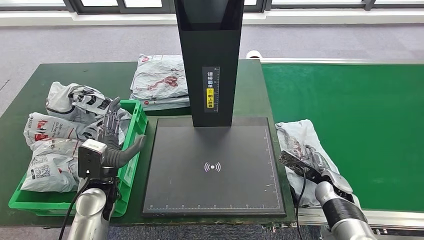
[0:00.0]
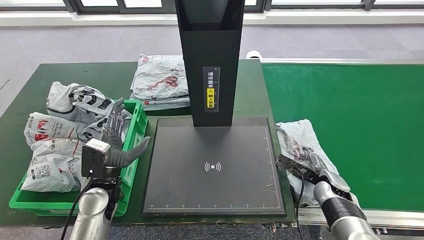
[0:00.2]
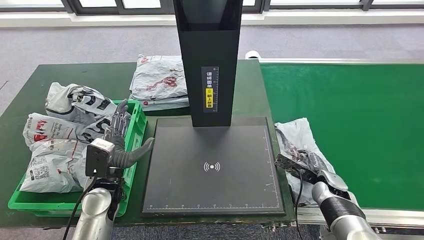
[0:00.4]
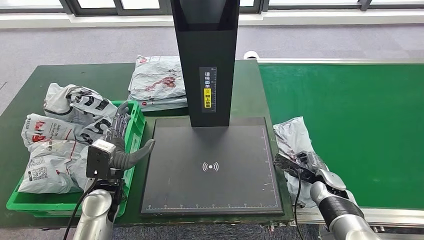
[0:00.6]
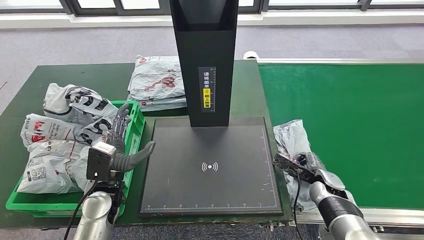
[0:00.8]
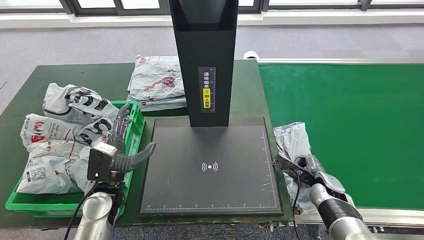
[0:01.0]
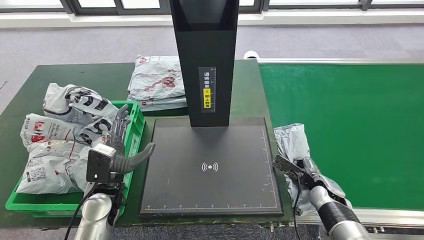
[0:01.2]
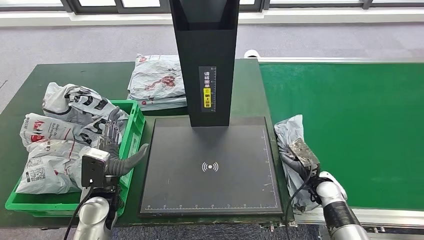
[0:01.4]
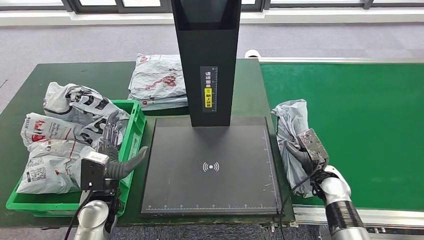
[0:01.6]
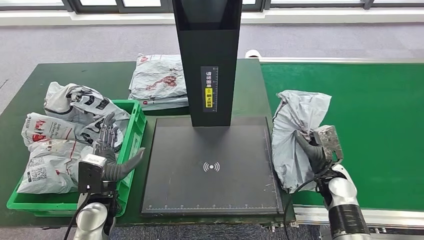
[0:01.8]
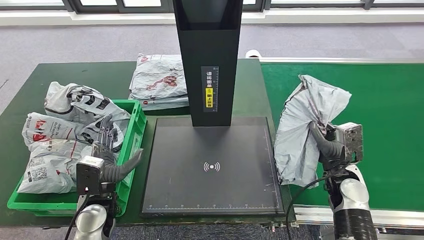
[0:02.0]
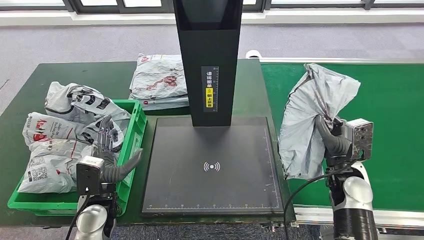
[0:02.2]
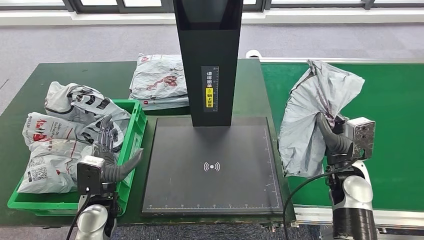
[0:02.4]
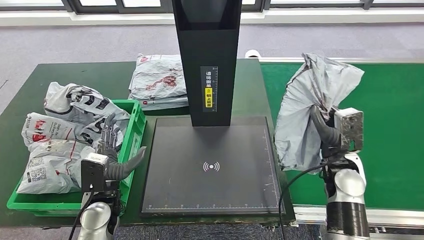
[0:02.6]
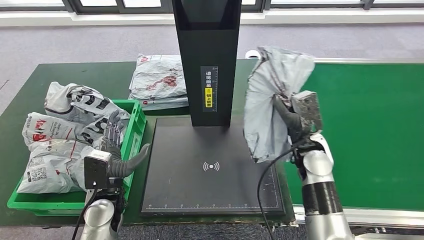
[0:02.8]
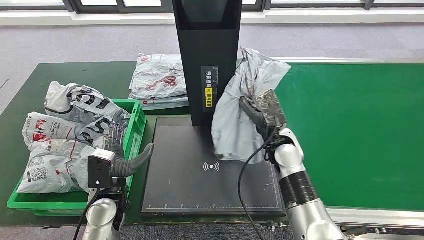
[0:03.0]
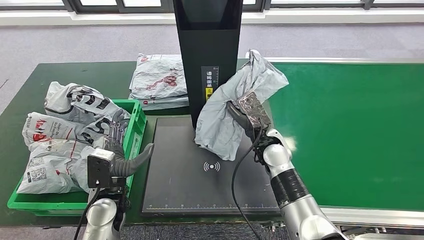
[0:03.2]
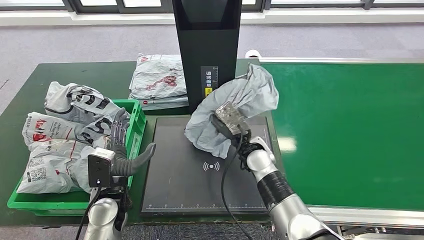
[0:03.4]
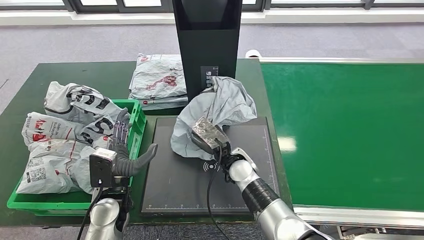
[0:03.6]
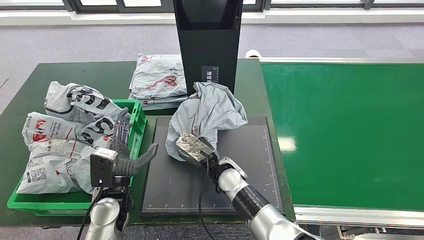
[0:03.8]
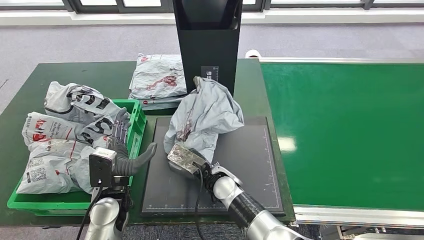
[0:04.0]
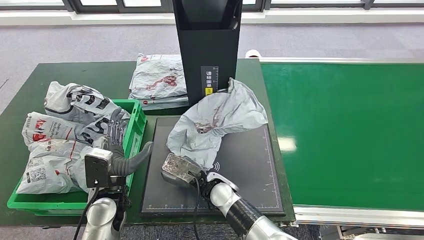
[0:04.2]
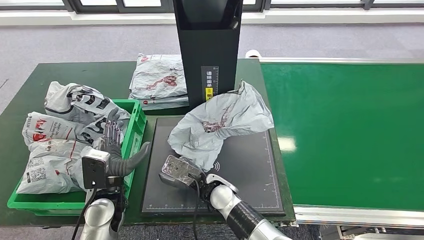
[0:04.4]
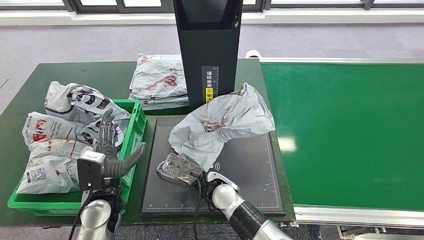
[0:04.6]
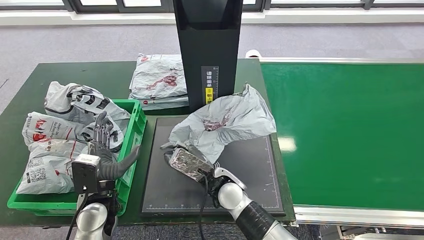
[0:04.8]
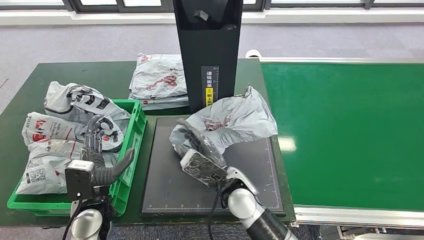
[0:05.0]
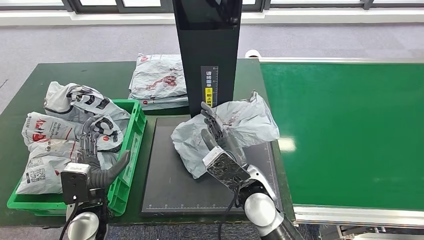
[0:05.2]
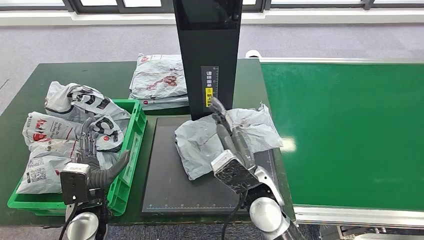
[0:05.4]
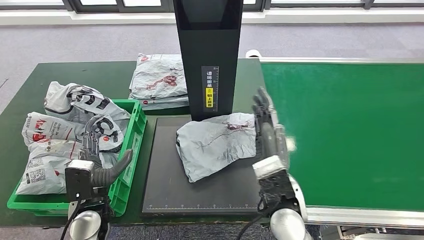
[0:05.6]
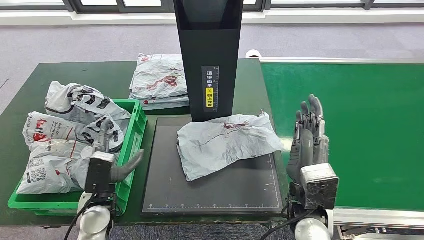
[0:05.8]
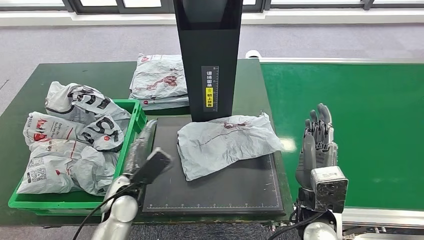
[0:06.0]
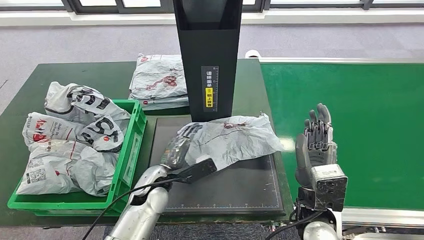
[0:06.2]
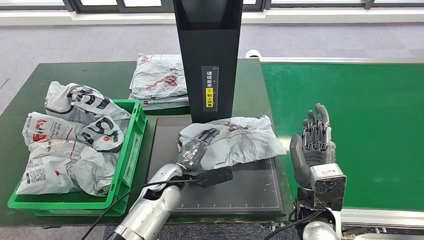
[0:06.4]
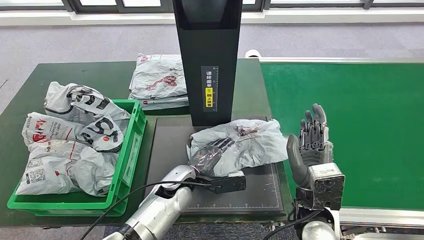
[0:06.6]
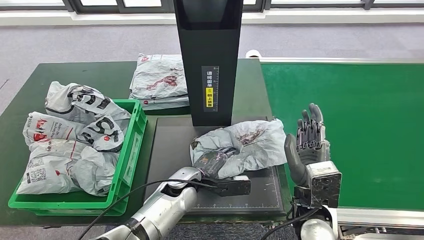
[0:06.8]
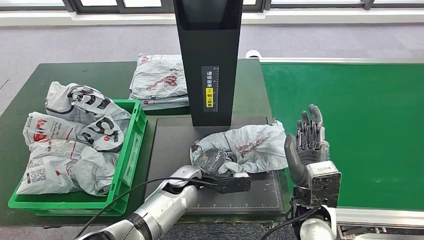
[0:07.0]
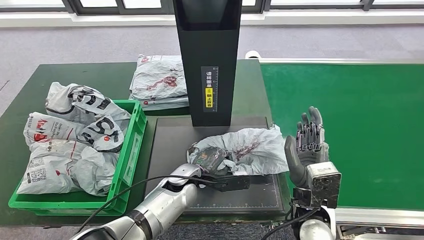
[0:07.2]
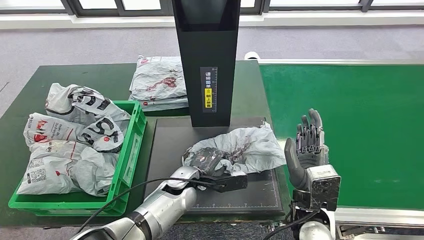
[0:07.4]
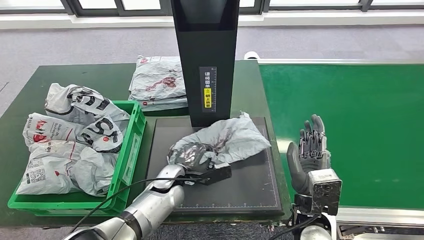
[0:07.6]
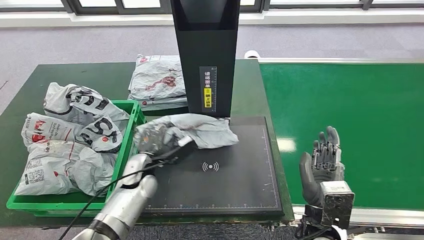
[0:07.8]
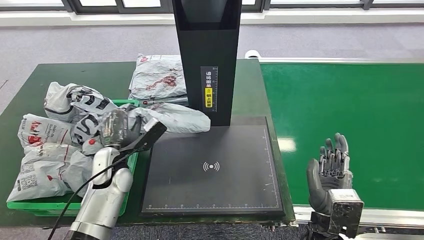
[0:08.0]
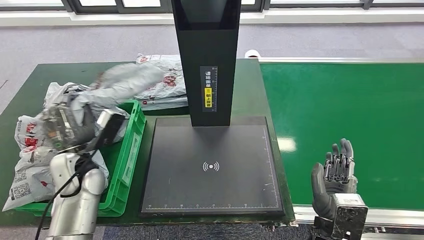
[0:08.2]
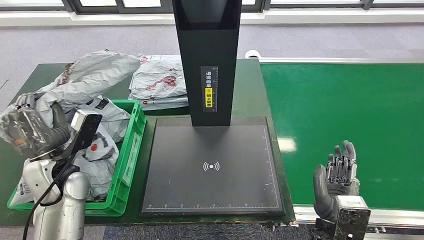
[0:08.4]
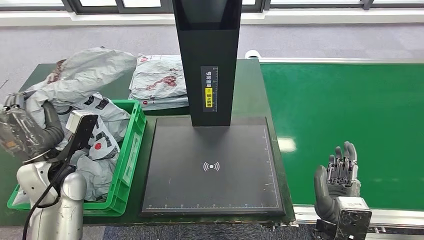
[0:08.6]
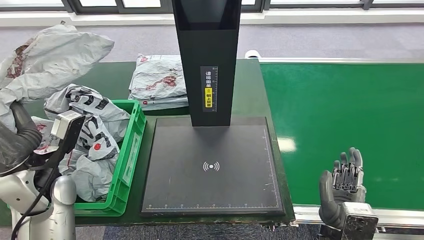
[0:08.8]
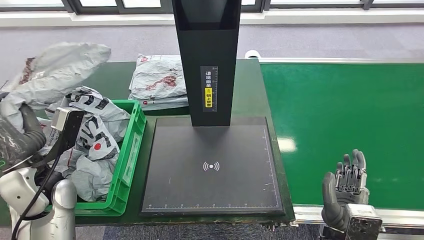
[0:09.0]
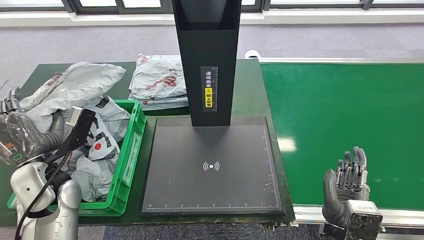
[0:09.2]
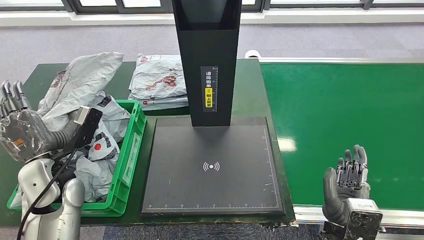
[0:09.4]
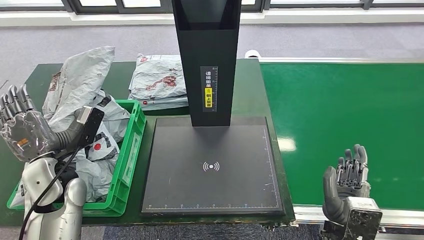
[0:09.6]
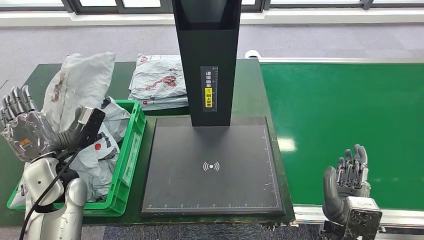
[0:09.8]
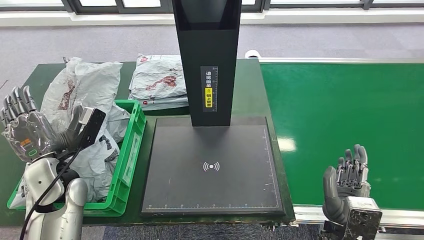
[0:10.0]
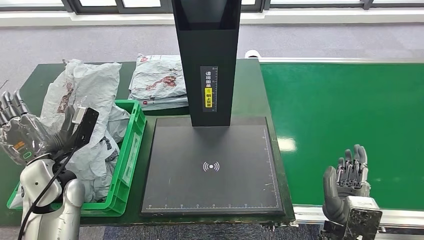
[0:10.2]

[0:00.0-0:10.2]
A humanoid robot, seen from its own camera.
Step, 0:00.0 to 0:01.6: Pick up the parcel from the conveyor belt.
Step, 0:02.0 to 0:04.6: Place the parcel onto the inbound machine.
Step, 0:04.8 to 0:07.8: Pick up the parcel from the inbound machine.
Step, 0:08.2 to 0:10.2: Place the parcel into the delivery box.
0:03.0 to 0:04.4: The right hand is displaced to the left, backward and downward by roughly 20 cm.
0:04.4 to 0:05.8: The right hand travels to the right and upward by roughly 20 cm.
